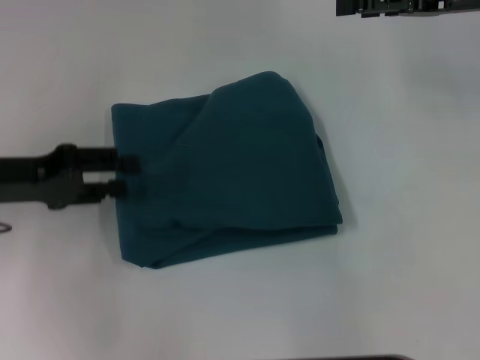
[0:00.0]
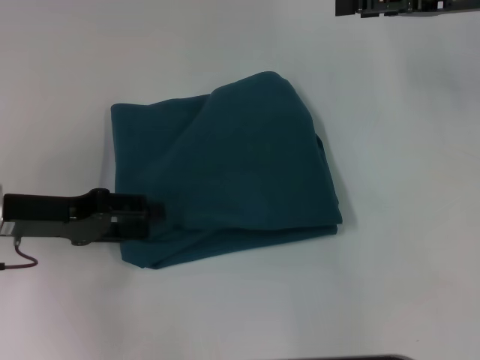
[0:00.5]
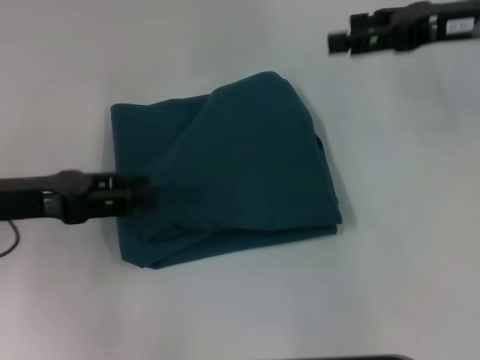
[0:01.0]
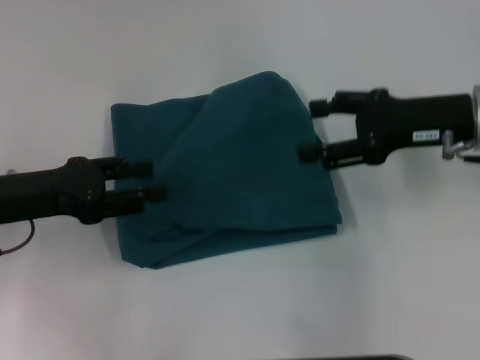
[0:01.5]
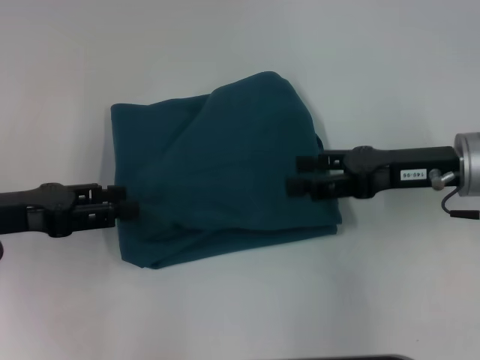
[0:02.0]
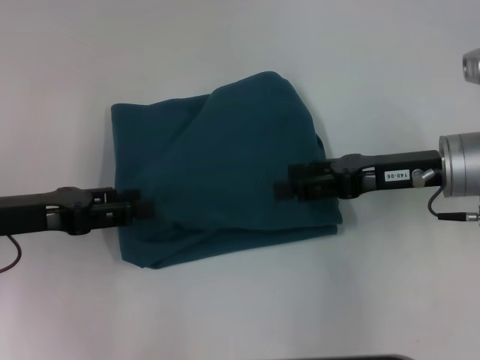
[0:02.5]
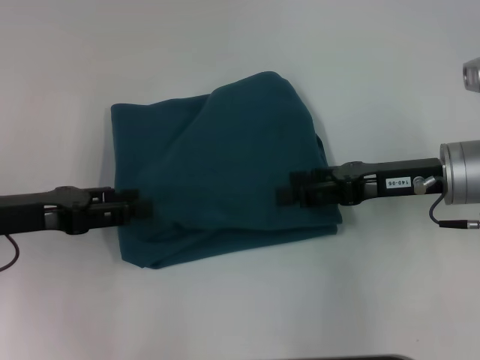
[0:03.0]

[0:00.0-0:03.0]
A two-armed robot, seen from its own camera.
0:00.0 to 0:01.5: The right gripper goes approximately 10 cm downward and backward.
0:01.5 to 0:03.0: The right gripper ends up about 5 cm from where it was.

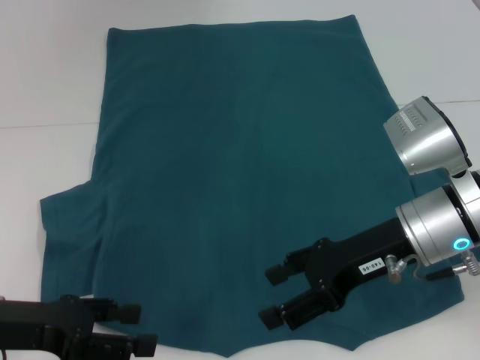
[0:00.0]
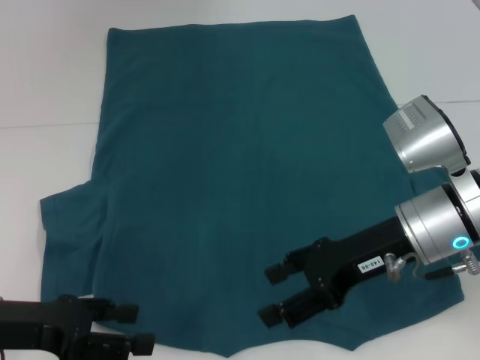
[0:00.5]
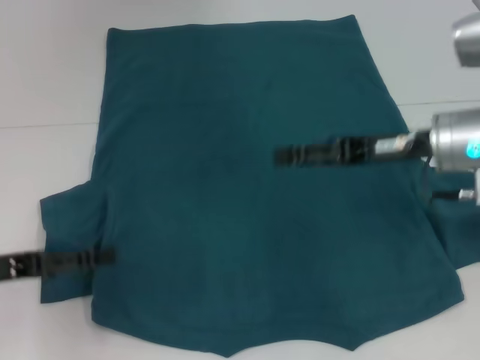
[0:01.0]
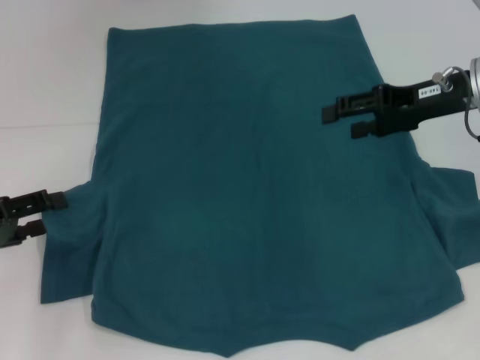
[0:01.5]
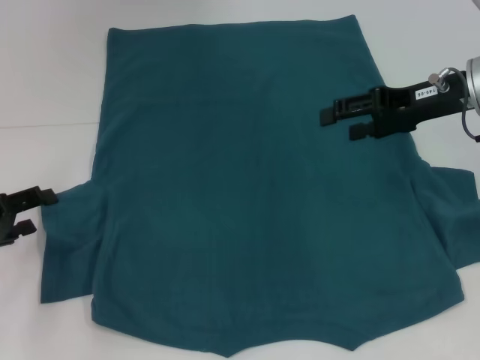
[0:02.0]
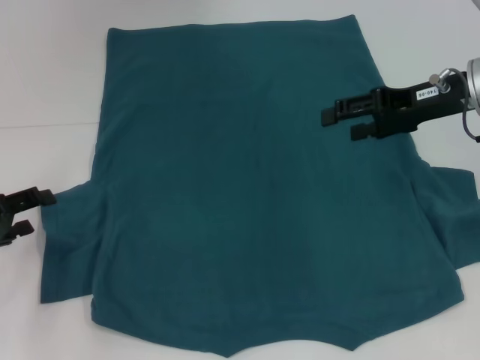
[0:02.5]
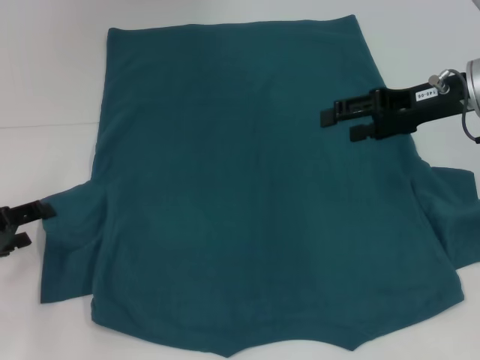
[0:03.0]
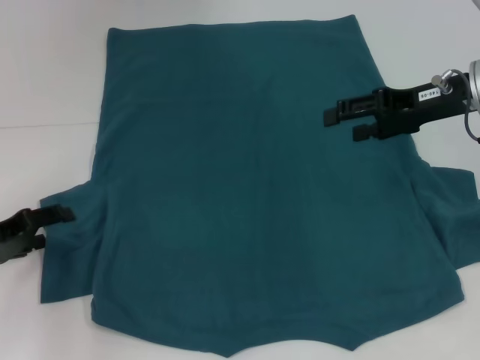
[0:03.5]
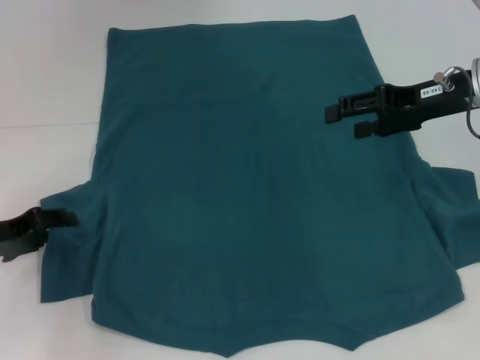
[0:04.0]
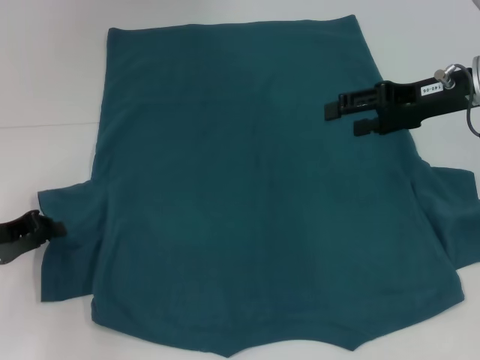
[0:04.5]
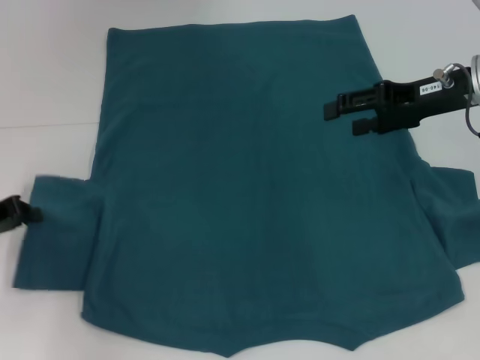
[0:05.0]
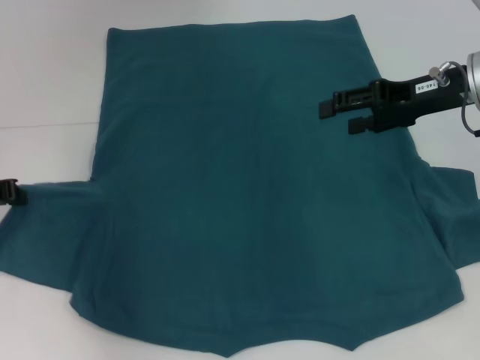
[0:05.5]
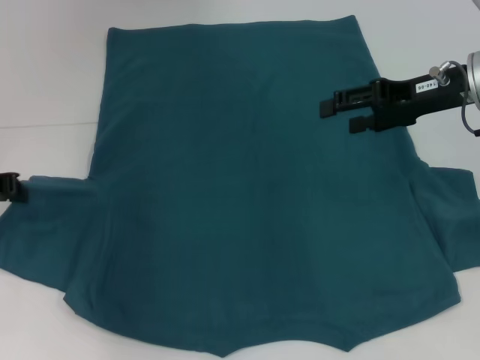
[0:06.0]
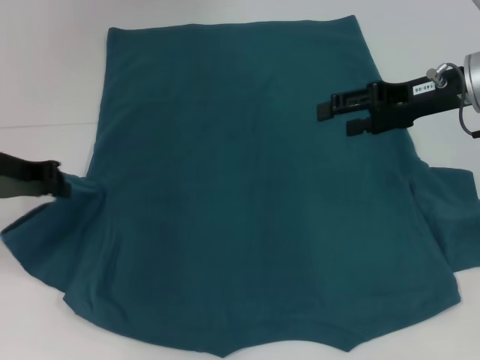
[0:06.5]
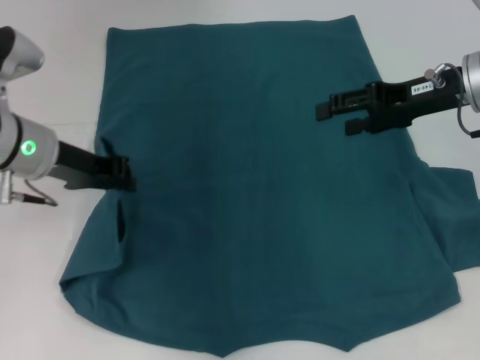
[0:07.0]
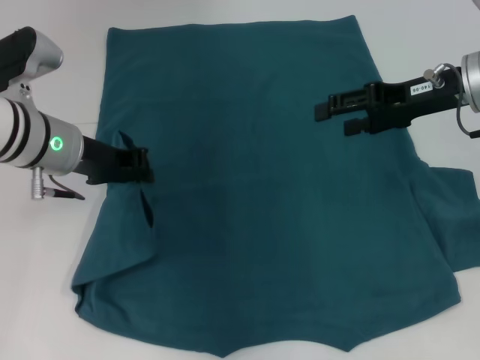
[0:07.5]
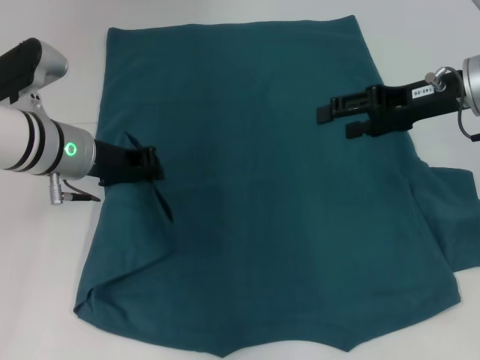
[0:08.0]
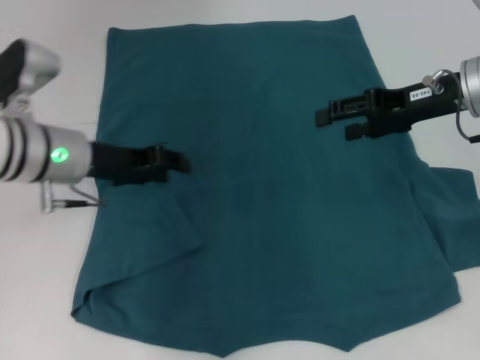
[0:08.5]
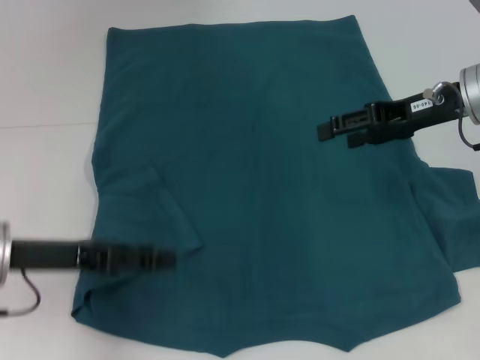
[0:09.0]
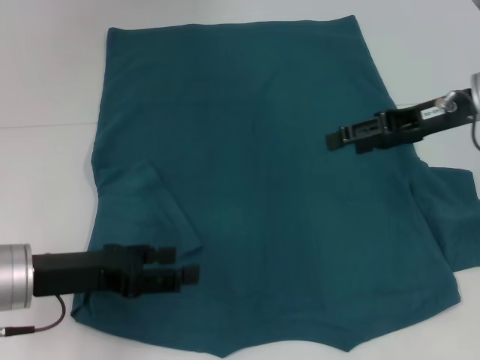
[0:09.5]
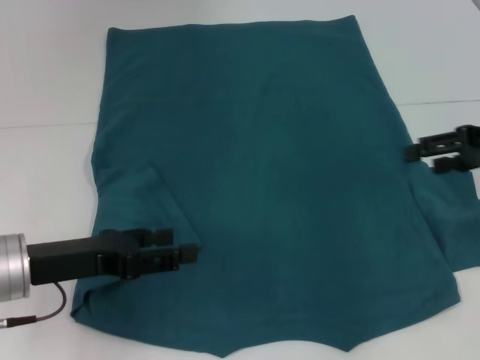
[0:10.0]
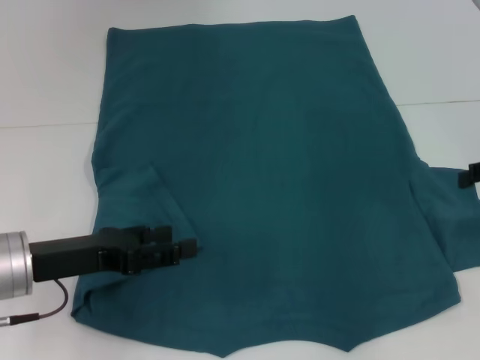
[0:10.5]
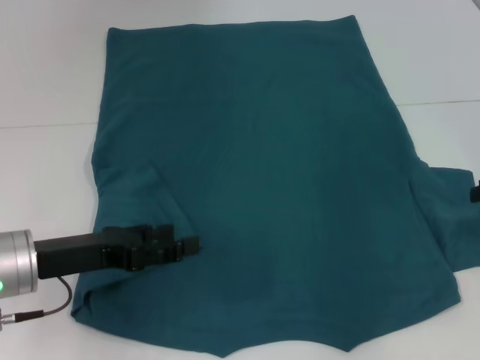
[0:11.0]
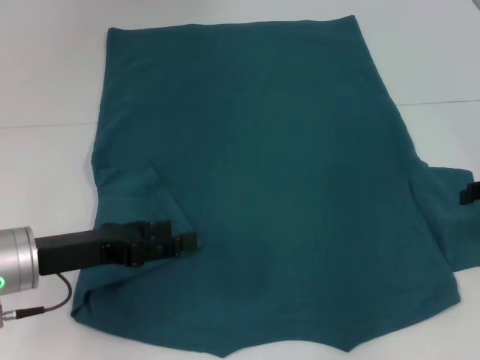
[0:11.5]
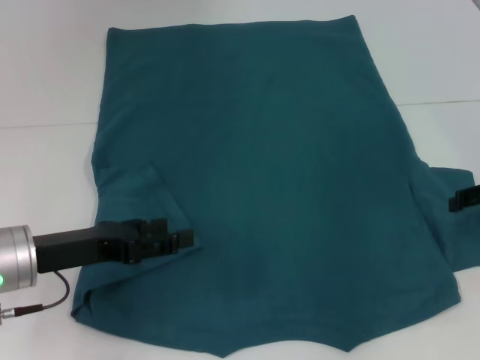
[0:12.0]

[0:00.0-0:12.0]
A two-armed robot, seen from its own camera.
Step, 0:00.0 to 0:08.5: Fold the bottom left sleeve with your left hand.
0:00.0 to 0:02.0: The right gripper heads forward, to the right and upward, covering some 15 cm; the left gripper is displaced to the left and forward by some 10 cm.
0:02.0 to 0:04.0: The grippers make only small movements.
0:04.0 to 0:06.0: The left gripper shifts some 10 cm upward, and closes its fingers.
0:06.0 to 0:08.0: The left gripper is displaced to the right by approximately 15 cm.
0:08.0 to 0:10.0: The left gripper moves backward and to the left, some 15 cm, and opens up. Meanwhile the right gripper heads to the right, covering about 10 cm.
0:10.0 to 0:12.0: The right gripper goes approximately 5 cm downward.

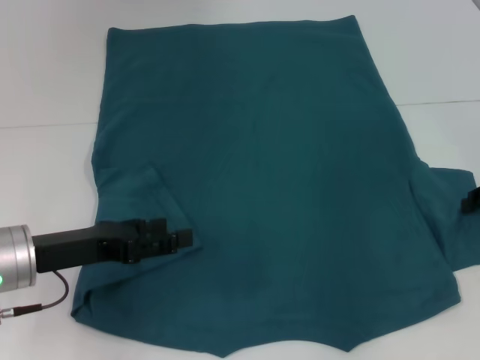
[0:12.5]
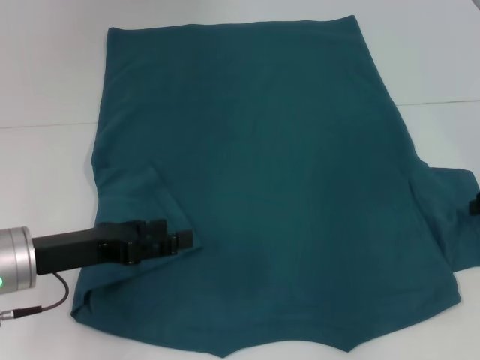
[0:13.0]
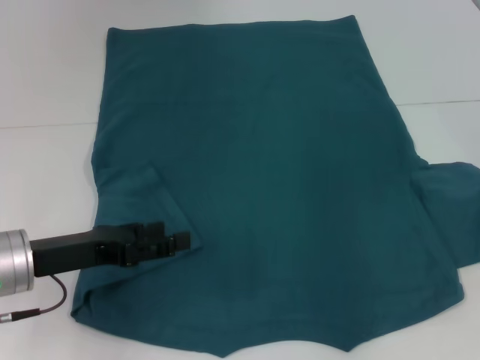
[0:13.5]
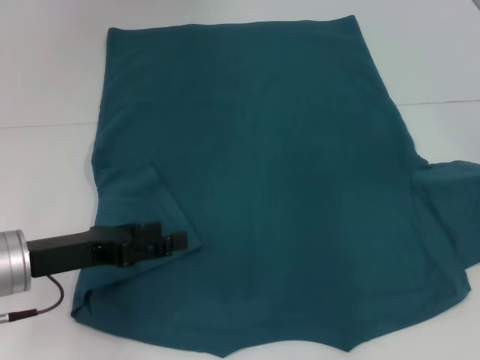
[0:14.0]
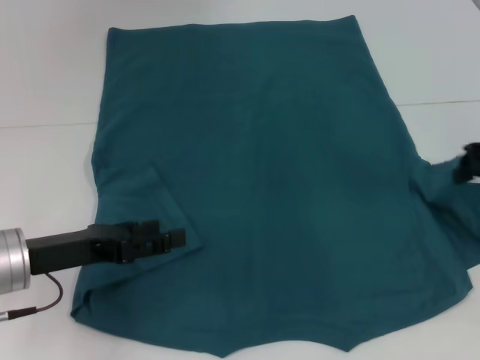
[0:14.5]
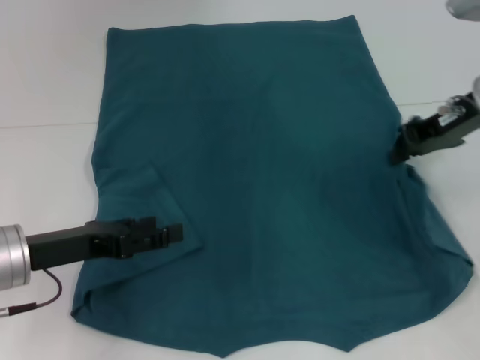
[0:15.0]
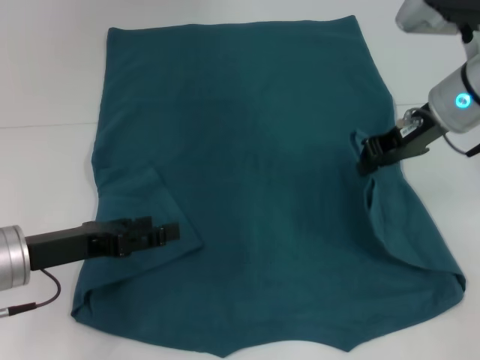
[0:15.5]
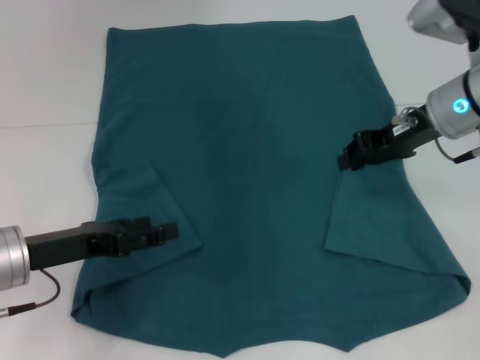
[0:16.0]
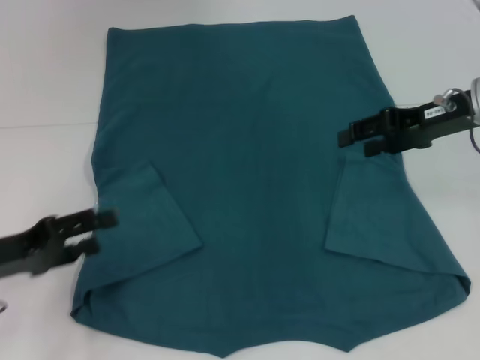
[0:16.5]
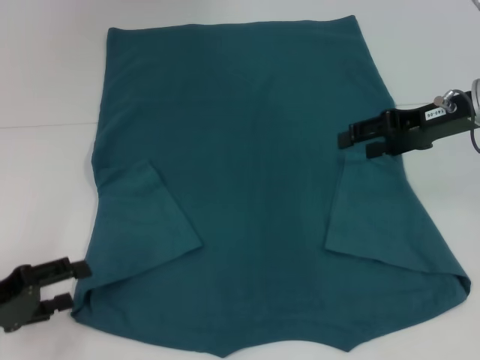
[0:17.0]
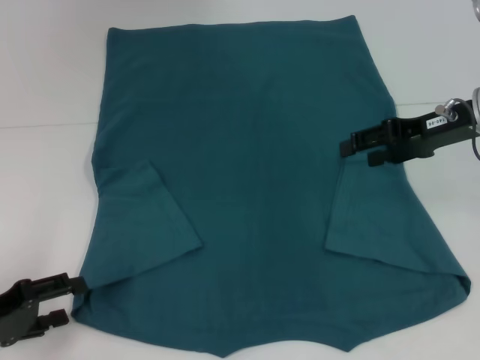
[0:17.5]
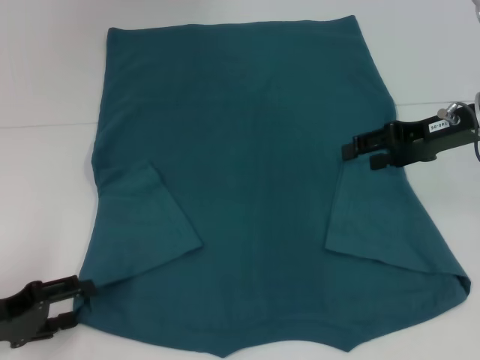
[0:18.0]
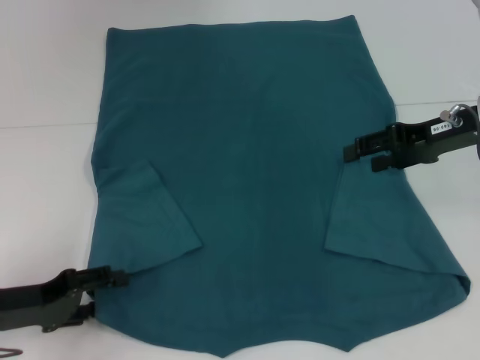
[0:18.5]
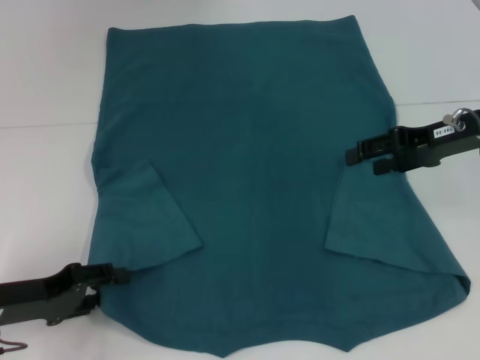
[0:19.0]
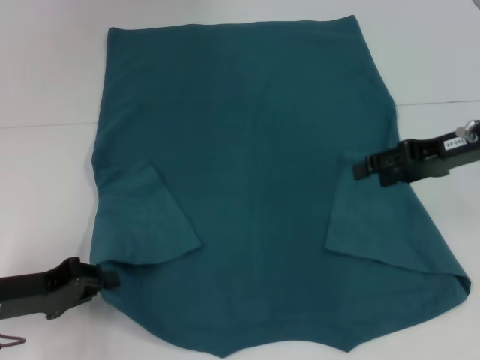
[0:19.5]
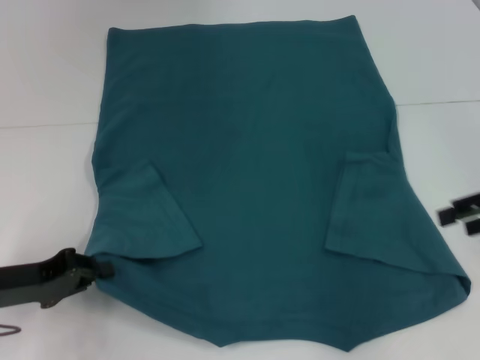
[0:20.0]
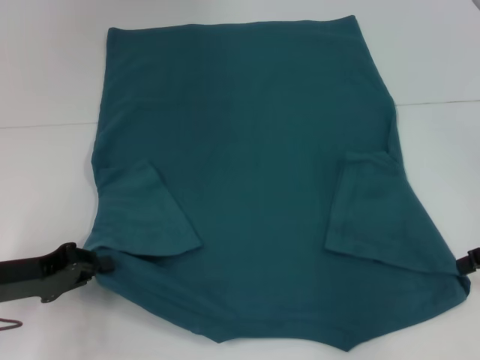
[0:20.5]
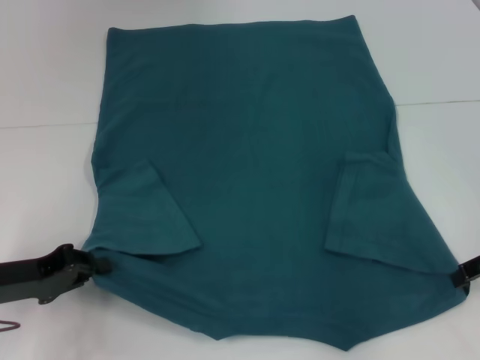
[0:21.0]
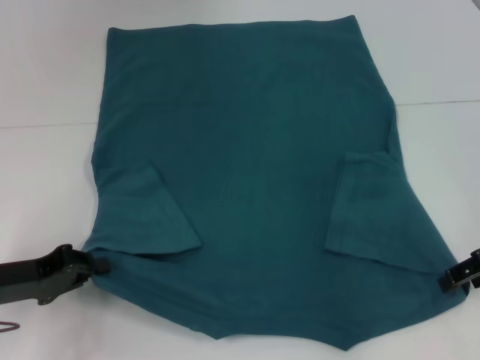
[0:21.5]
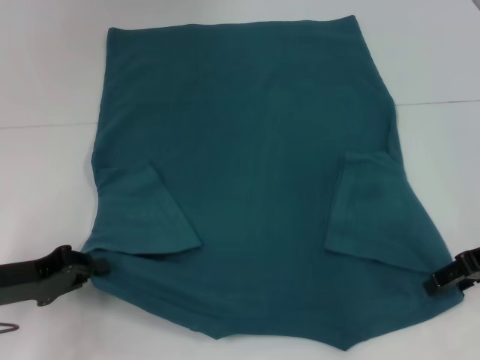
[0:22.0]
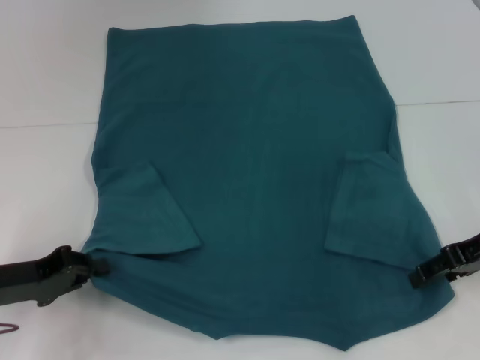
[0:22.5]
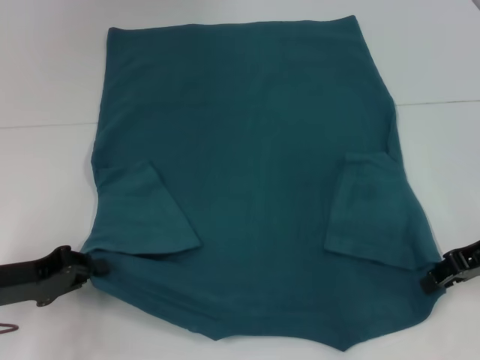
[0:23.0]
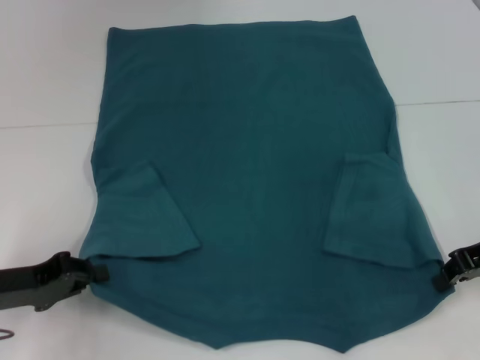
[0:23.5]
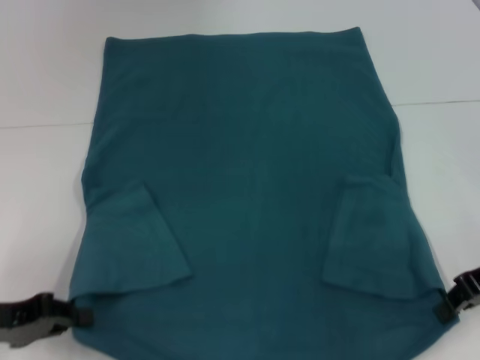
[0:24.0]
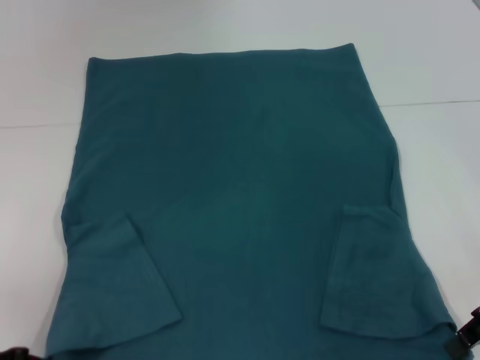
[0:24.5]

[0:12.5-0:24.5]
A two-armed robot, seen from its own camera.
Step, 0:12.5 to 0:17.0: Fold the bottom right sleeve to the right.
Step, 0:17.5 to 0:19.5: Grab the bottom left corner with your left hand.
Step, 0:20.0 to 0:23.5: Grab the bottom right corner with your right hand.
0:12.5 to 0:14.5: The right gripper heads upward, covering roughly 5 cm, and closes its fingers.
0:14.5 to 0:16.5: Both grippers travel together to the left, about 5 cm. The right gripper opens up.
0:16.5 to 0:18.5: The grippers make only small movements.
0:18.5 to 0:20.5: The right gripper goes roughly 10 cm to the right and backward; the left gripper closes its fingers.
0:20.5 to 0:22.5: The right gripper shifts roughly 5 cm to the left.
0:22.5 to 0:24.5: The right gripper closes its fingers. The left gripper shifts approximately 5 cm backward.
